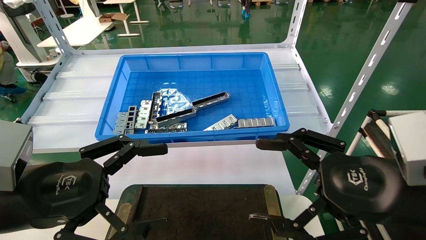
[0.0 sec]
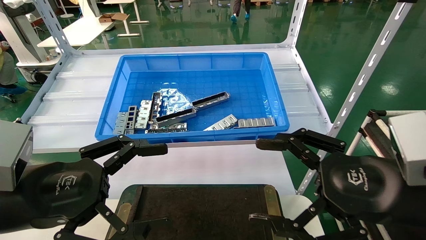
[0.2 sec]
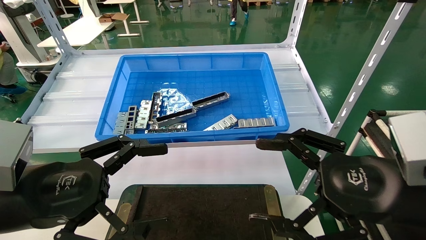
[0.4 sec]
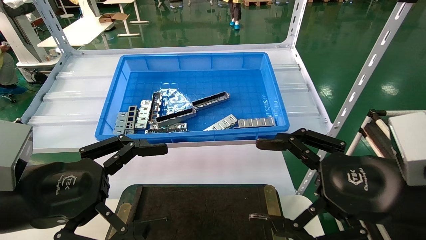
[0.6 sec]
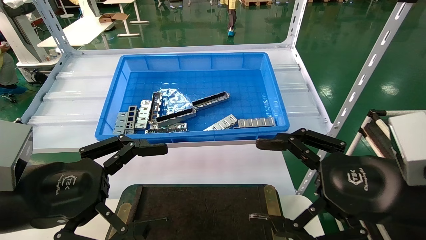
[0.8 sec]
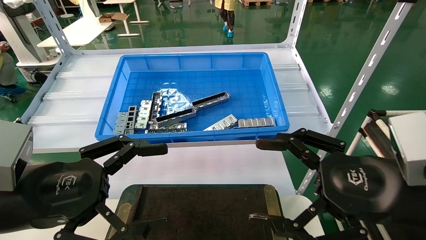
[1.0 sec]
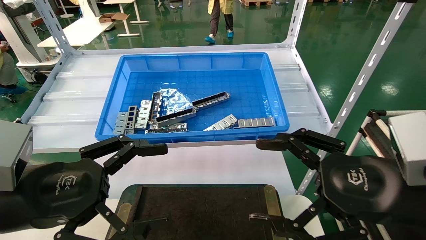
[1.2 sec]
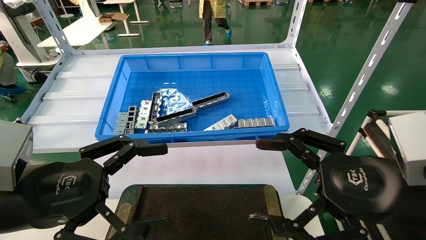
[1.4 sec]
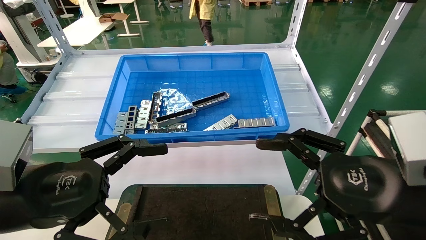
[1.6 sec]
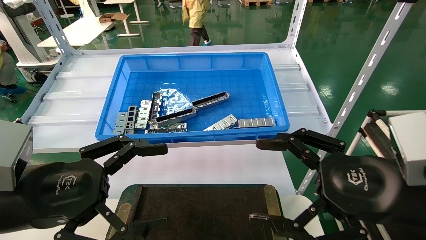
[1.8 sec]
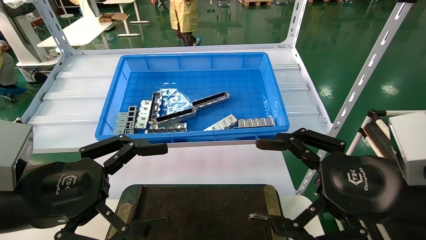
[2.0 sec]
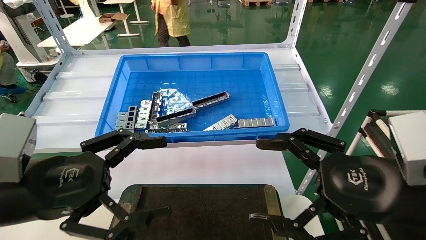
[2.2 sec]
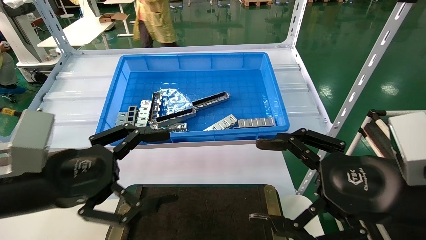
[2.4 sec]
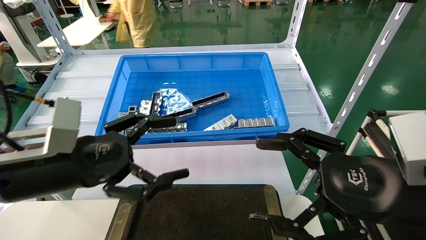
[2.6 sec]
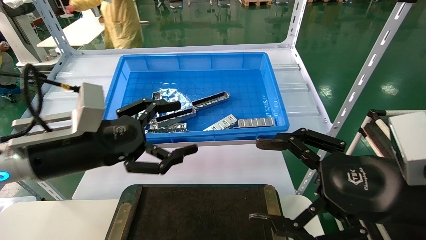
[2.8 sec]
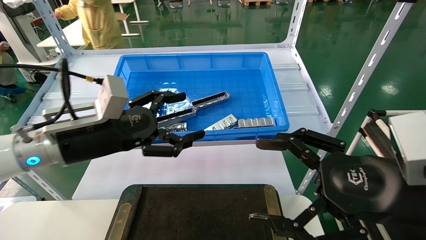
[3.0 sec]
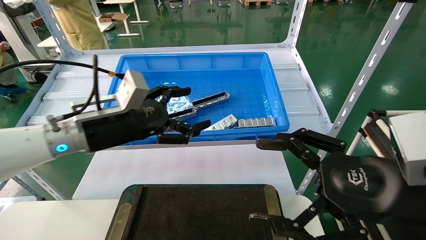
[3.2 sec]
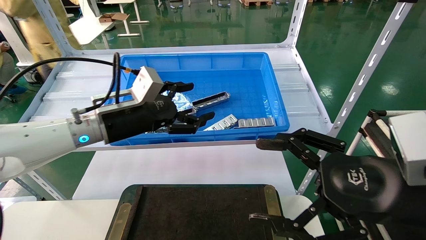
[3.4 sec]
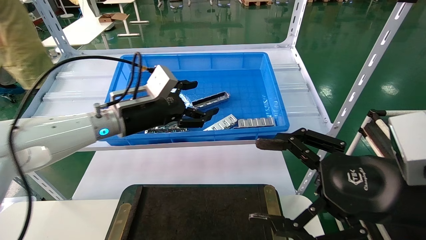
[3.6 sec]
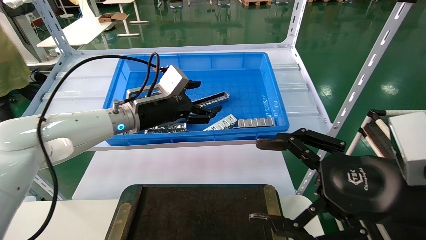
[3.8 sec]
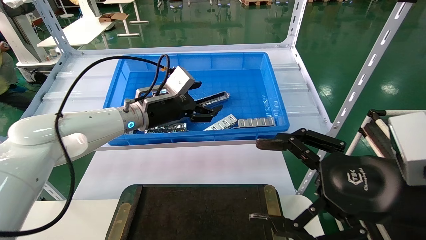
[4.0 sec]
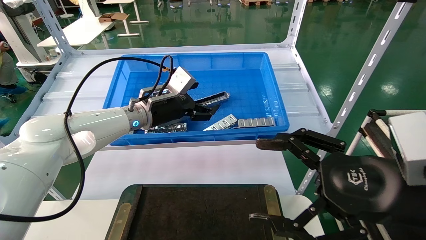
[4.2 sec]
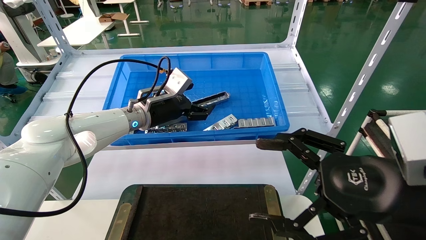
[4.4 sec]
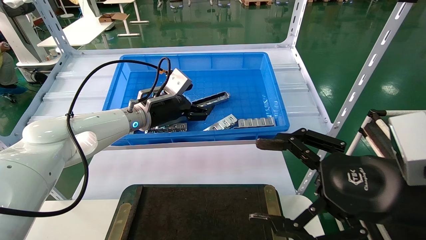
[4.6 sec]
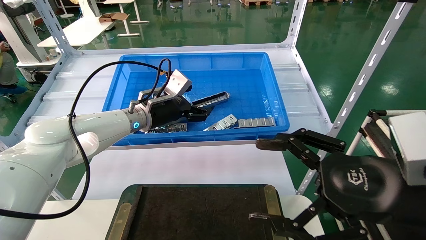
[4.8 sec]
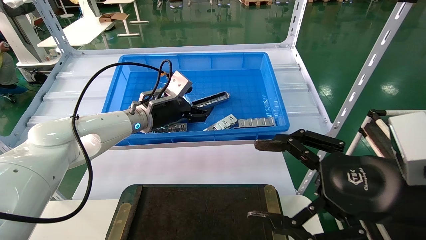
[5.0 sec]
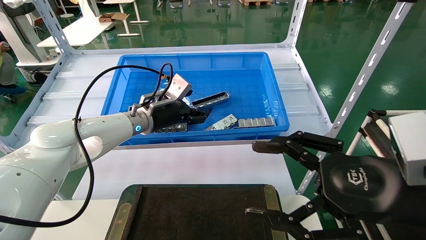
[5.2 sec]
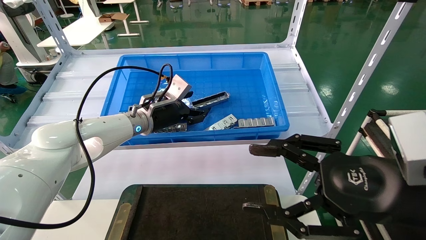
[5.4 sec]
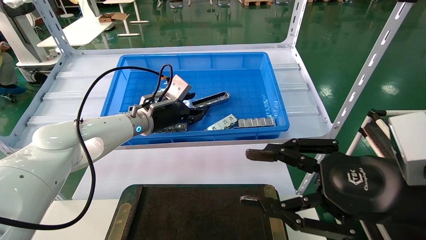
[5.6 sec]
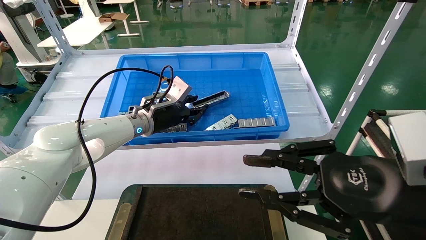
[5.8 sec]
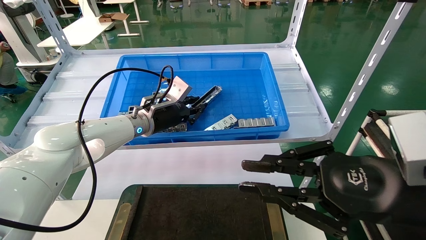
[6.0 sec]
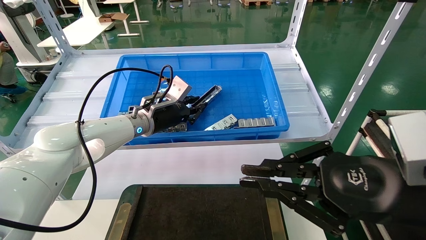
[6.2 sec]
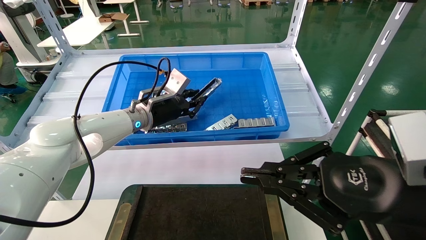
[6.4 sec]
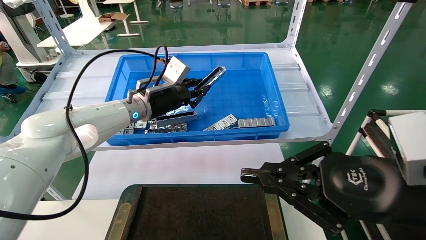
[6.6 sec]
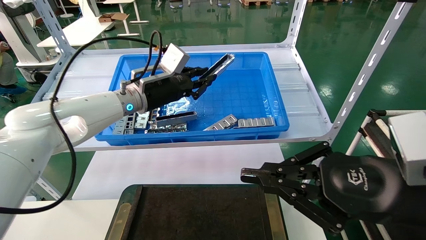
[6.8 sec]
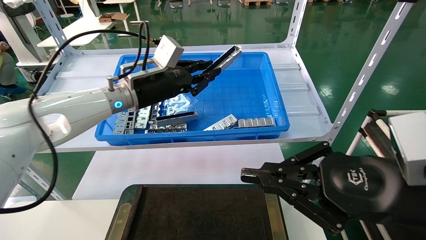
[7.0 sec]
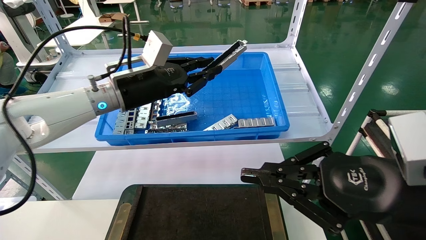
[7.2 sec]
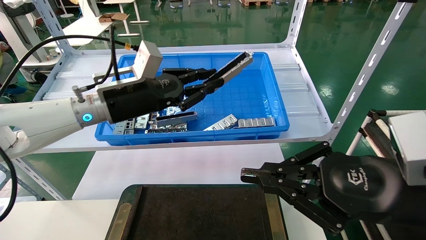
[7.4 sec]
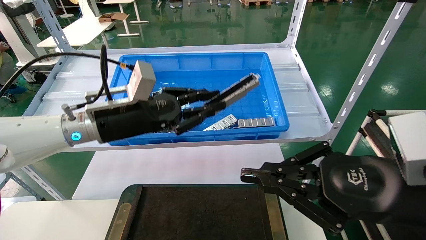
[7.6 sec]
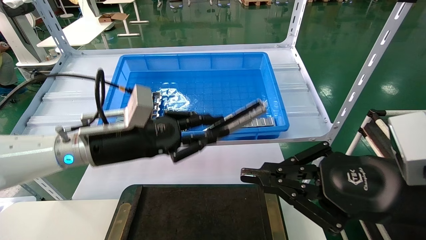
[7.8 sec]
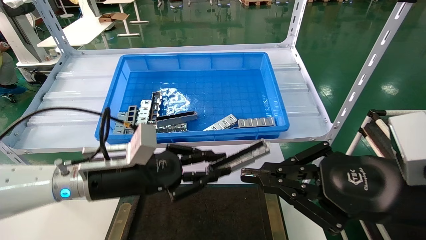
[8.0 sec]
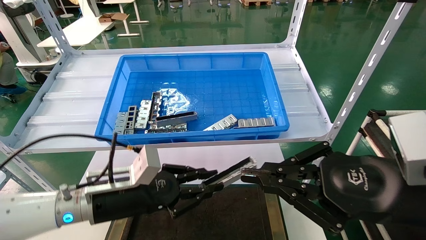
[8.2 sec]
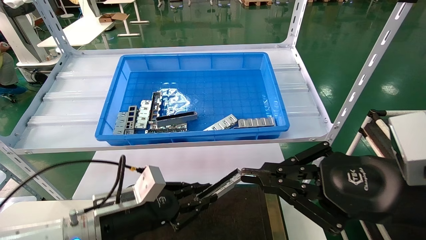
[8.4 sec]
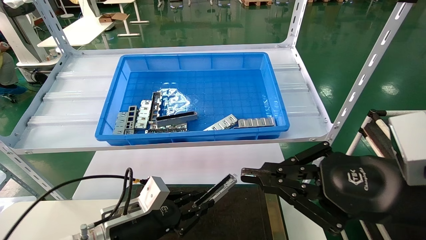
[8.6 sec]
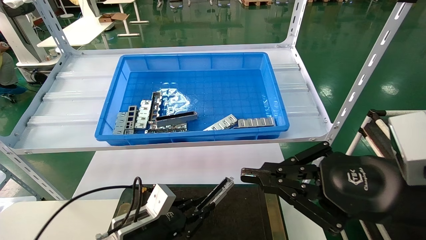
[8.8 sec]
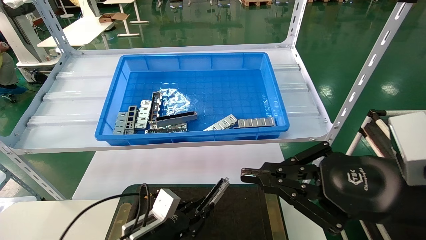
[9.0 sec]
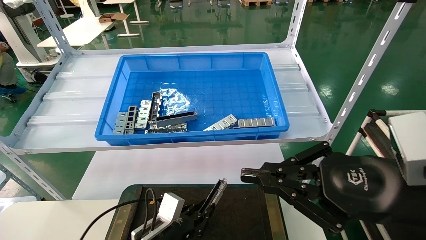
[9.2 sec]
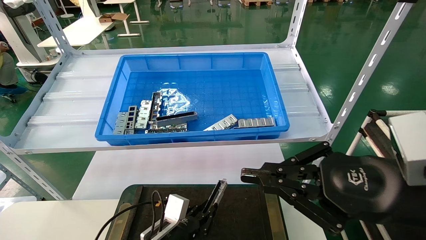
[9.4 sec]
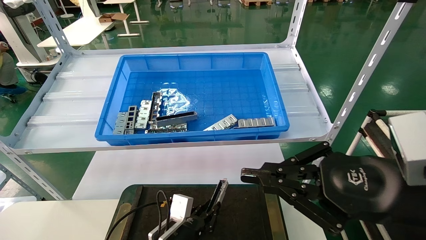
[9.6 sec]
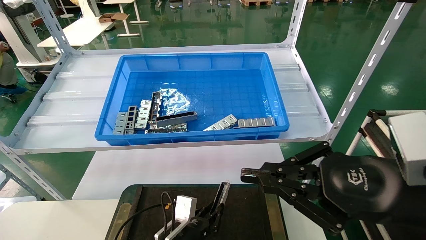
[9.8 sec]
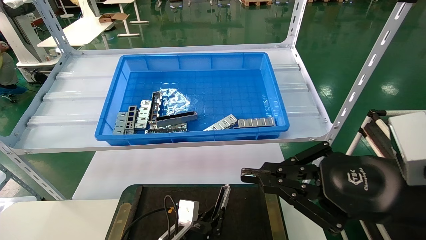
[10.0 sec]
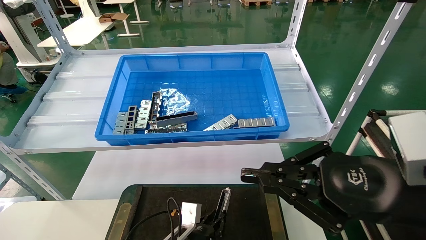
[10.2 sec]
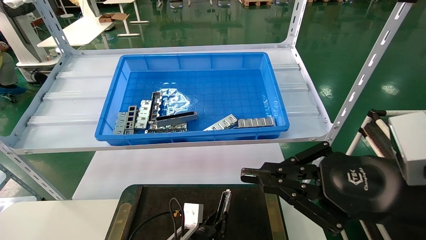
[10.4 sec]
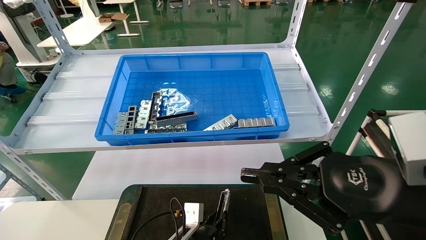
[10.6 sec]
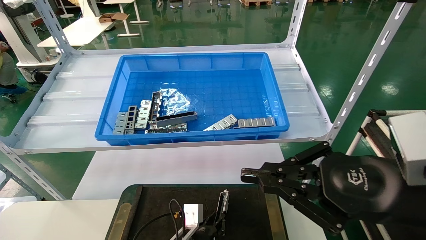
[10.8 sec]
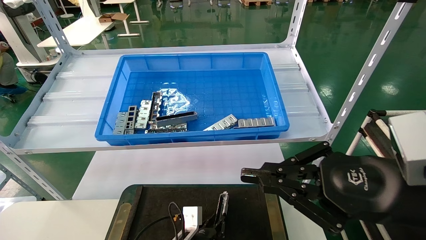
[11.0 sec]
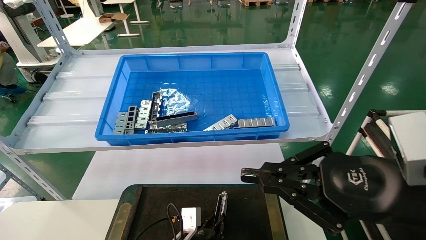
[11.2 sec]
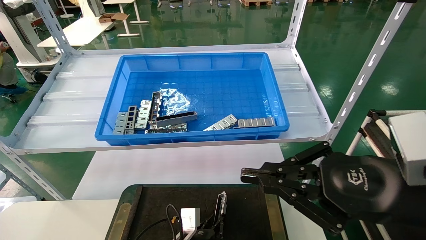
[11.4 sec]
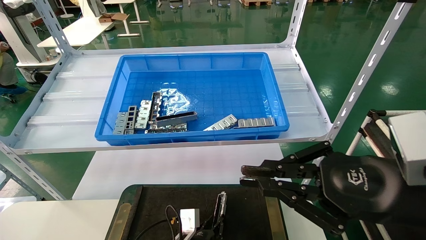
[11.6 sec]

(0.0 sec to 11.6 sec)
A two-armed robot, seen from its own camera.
Task of the whole recording: Grasp the part with one hand and place it on the black container.
Step, 2.4 sec - 5.8 sec: Pick up the front USB bracket from the feeding area.
0.0 sec - 1.4 sec: Neither gripper changes place.
1.4 sec - 2.8 sec: The left gripper heads forward, covering about 10 cm.
2.8 sec - 4.4 sec: The left gripper moves forward, roughly 20 cm.
4.4 sec - 5.8 sec: The left gripper closes, while the right gripper closes its fingers.
5.8 sec - 7.2 sec: The right gripper closes up. The left gripper shifts about 10 cm backward and upward, and closes up.
7.2 sec - 8.8 sec: The left gripper heads downward, covering some 30 cm.
8.8 sec - 10.2 sec: The left gripper is displaced to the right and downward by roughly 15 cm.
10.2 sec - 11.6 sec: The grippers move only a little.

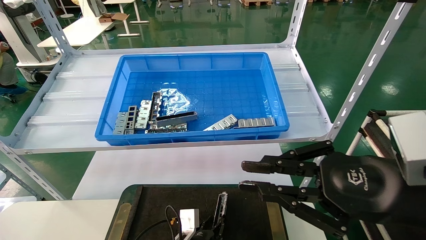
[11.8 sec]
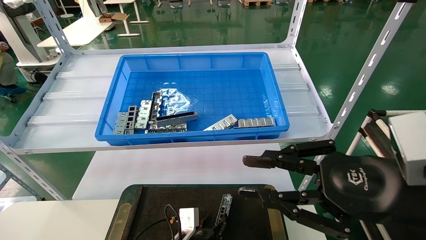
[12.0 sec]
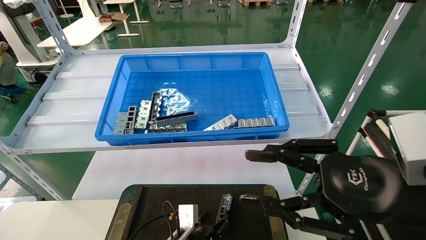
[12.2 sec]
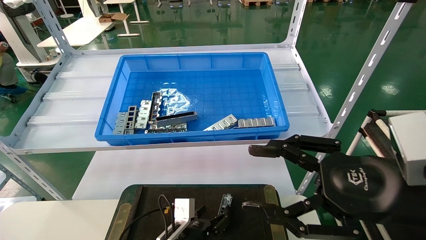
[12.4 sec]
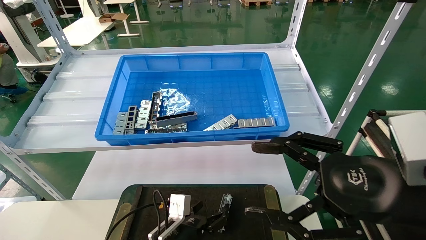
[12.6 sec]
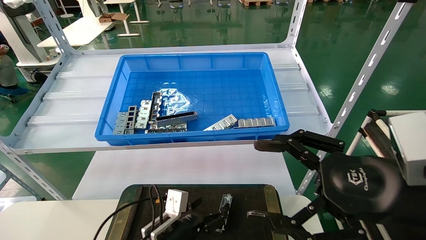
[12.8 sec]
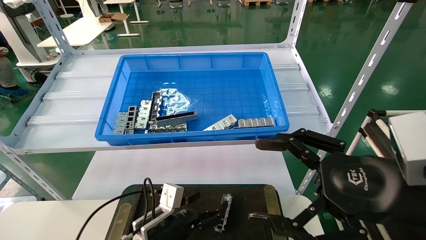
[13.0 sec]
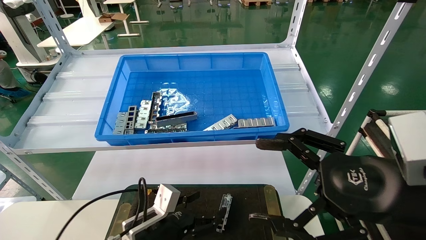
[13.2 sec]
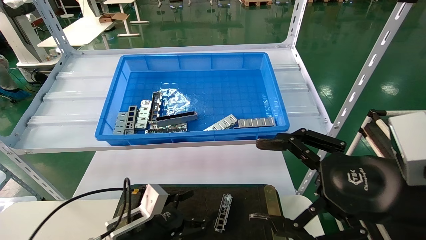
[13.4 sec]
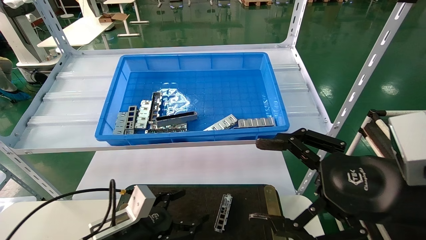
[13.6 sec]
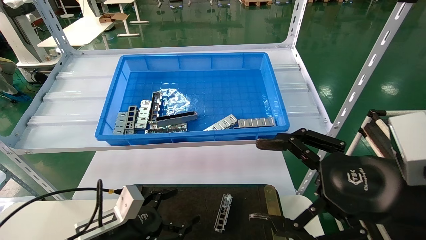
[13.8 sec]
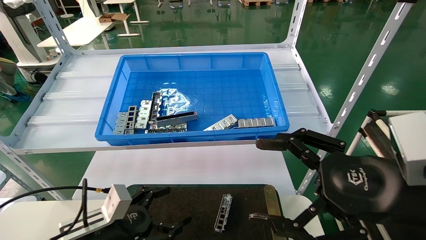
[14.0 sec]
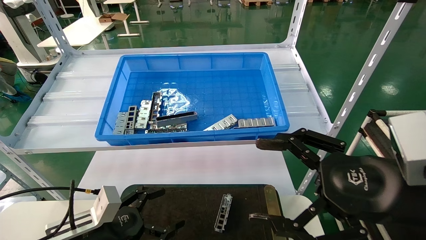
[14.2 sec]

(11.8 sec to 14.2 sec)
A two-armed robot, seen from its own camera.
Task of the whole recording: Grasp the part with one hand and place it on the black container.
11.8 sec - 13.0 sec: The left gripper shifts about 10 cm upward and to the left, and opens; the right gripper opens up.
13.0 sec - 14.2 sec: The left gripper is displaced to the left, upward and backward by about 15 cm.
